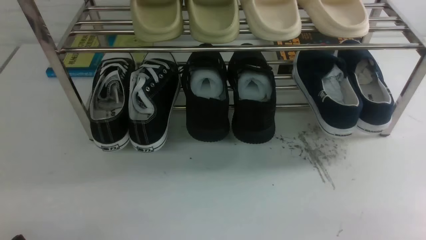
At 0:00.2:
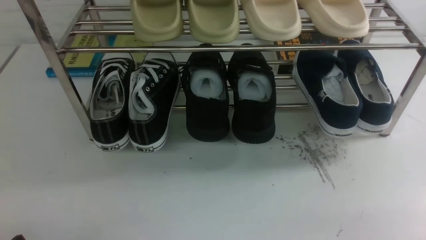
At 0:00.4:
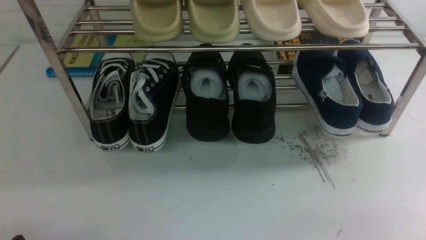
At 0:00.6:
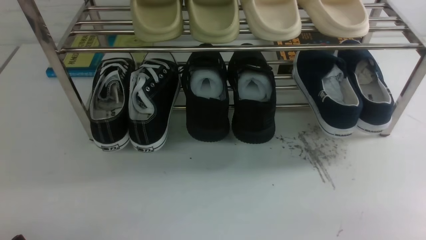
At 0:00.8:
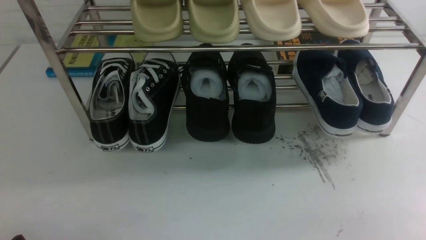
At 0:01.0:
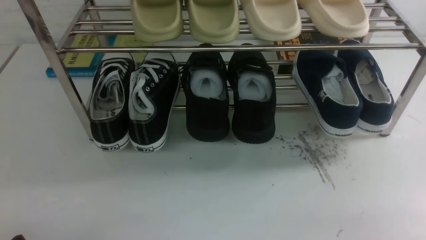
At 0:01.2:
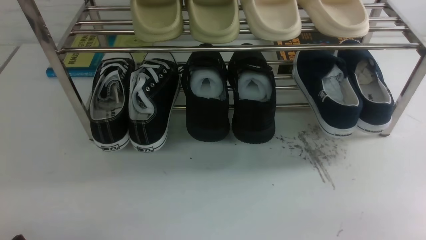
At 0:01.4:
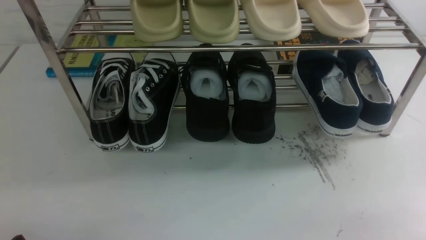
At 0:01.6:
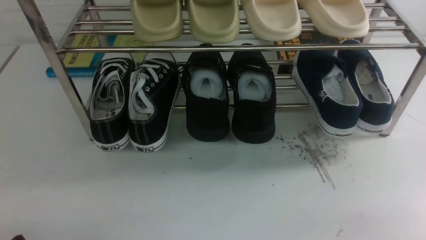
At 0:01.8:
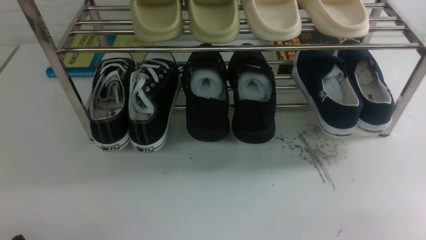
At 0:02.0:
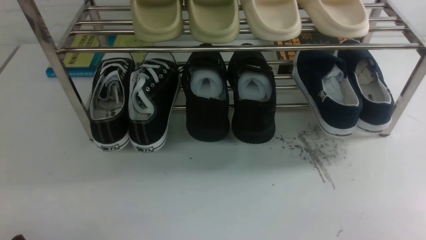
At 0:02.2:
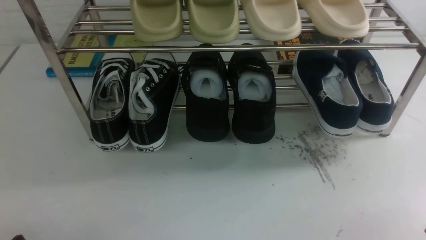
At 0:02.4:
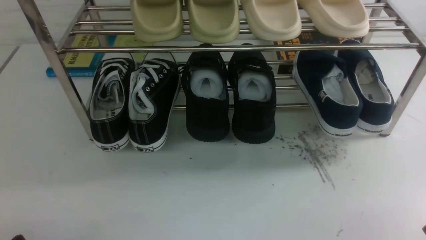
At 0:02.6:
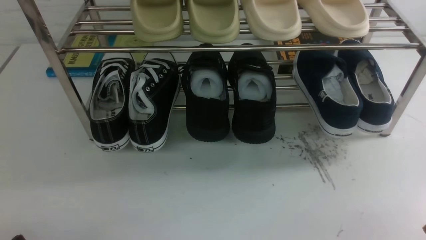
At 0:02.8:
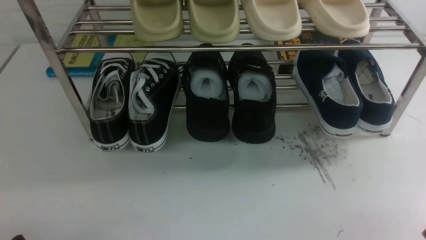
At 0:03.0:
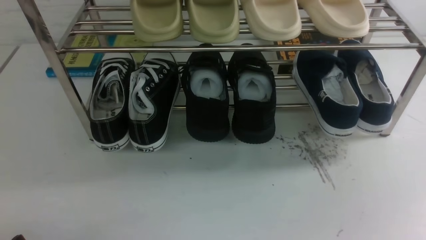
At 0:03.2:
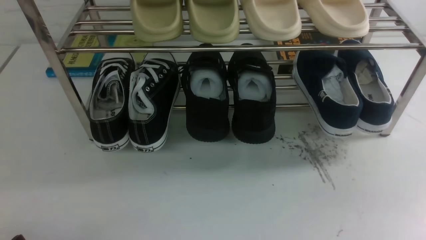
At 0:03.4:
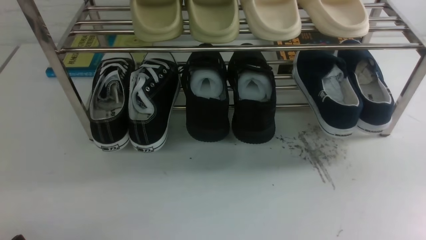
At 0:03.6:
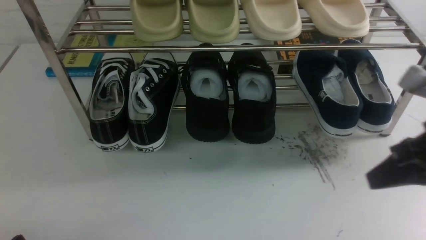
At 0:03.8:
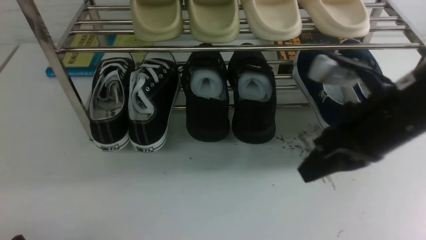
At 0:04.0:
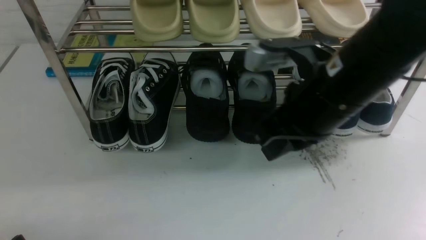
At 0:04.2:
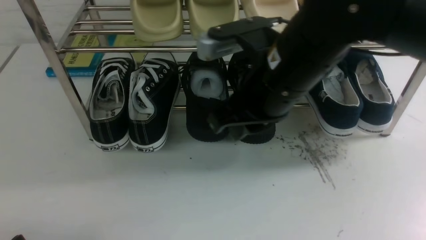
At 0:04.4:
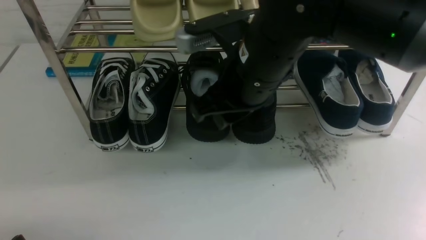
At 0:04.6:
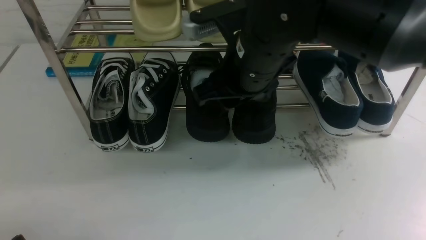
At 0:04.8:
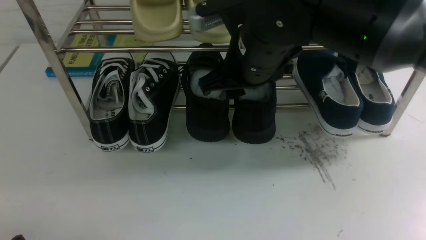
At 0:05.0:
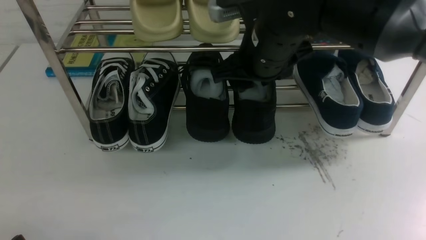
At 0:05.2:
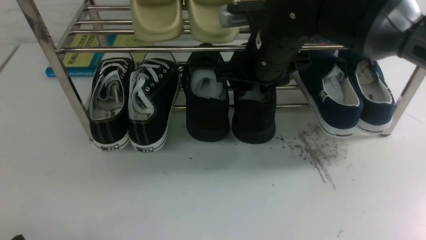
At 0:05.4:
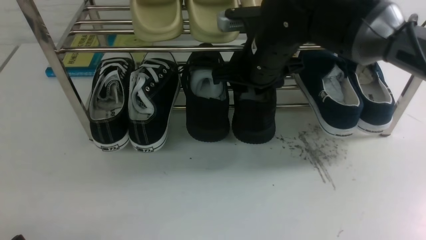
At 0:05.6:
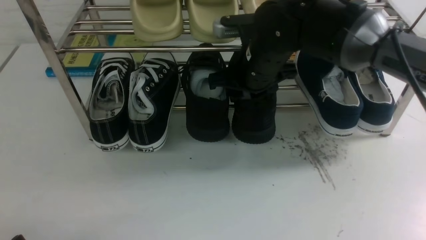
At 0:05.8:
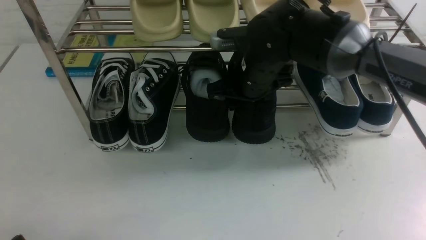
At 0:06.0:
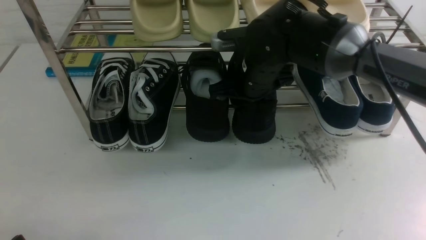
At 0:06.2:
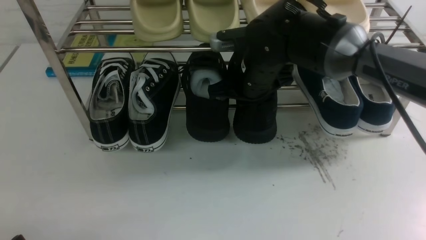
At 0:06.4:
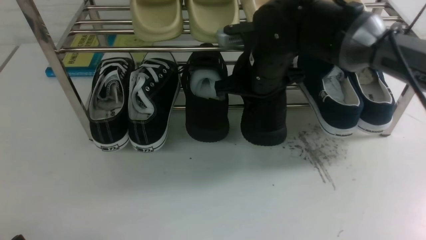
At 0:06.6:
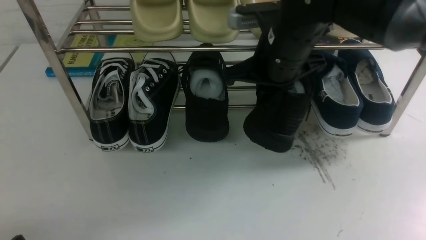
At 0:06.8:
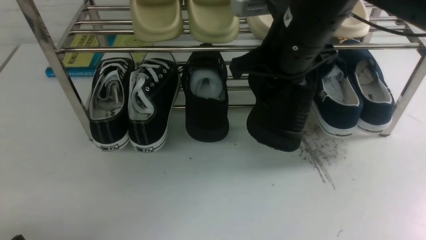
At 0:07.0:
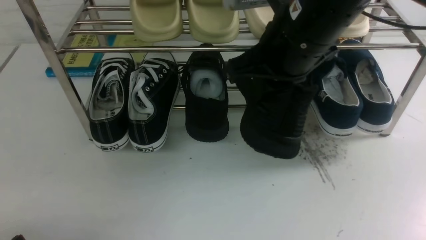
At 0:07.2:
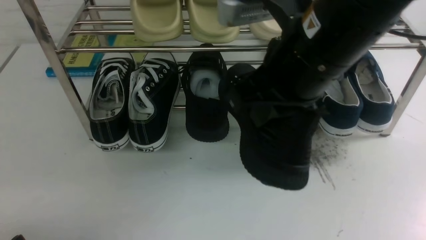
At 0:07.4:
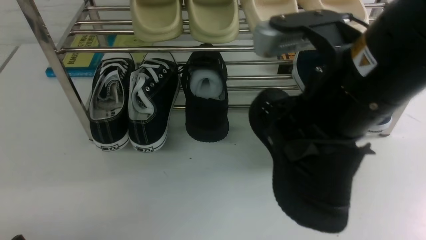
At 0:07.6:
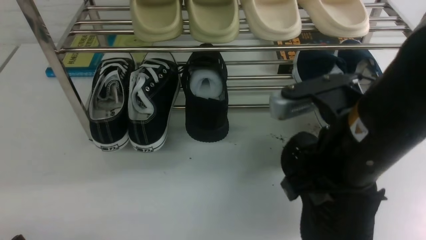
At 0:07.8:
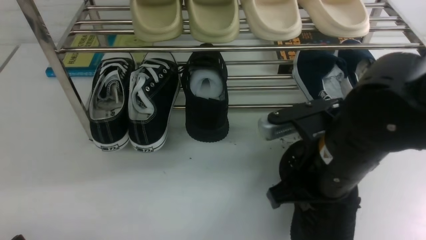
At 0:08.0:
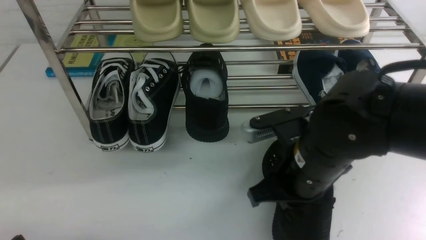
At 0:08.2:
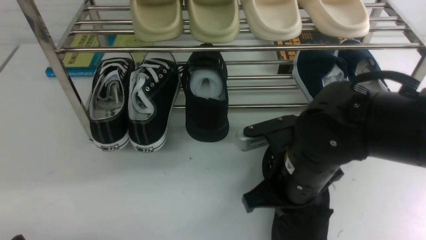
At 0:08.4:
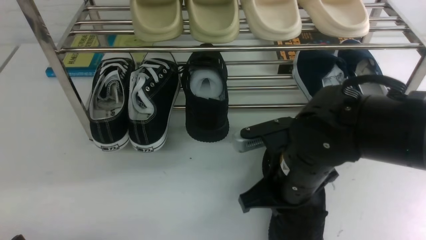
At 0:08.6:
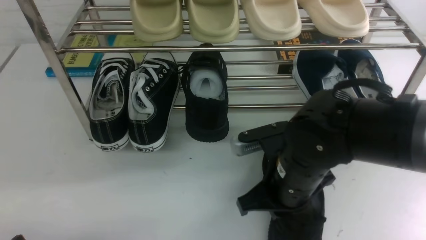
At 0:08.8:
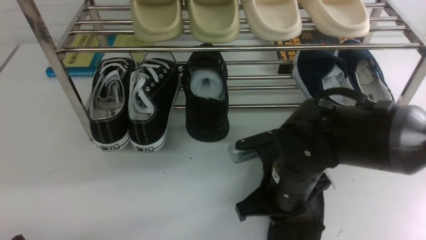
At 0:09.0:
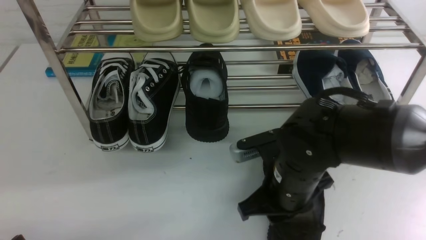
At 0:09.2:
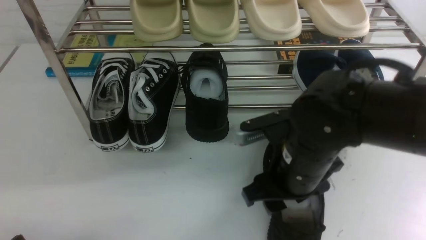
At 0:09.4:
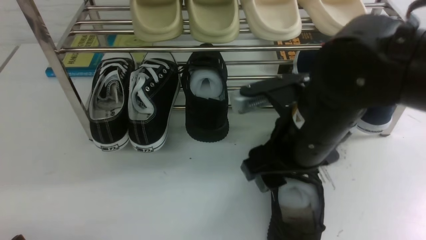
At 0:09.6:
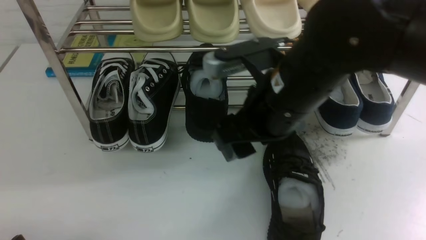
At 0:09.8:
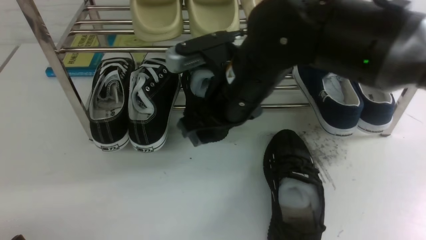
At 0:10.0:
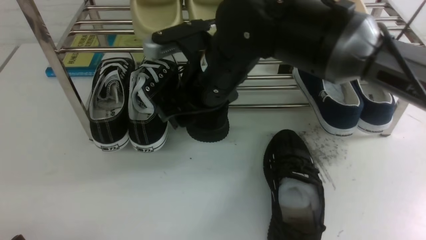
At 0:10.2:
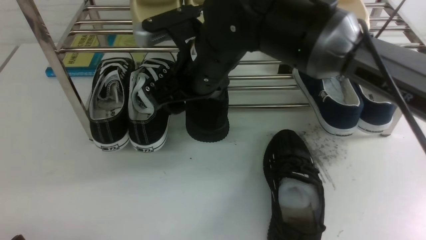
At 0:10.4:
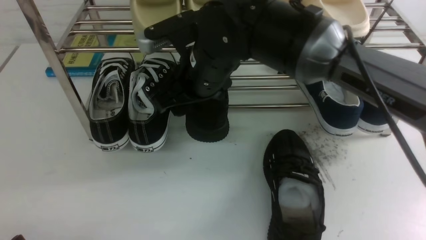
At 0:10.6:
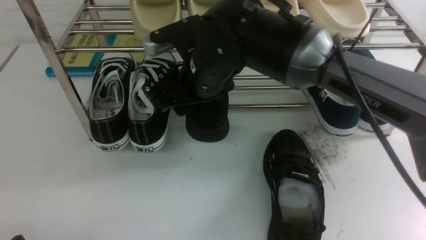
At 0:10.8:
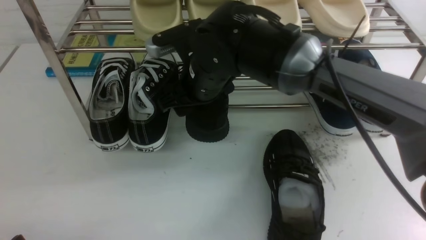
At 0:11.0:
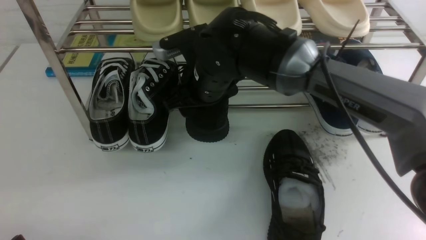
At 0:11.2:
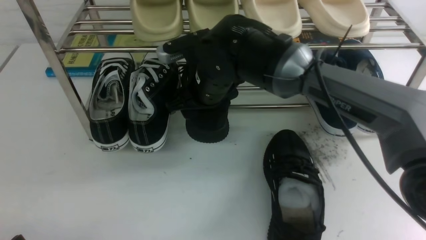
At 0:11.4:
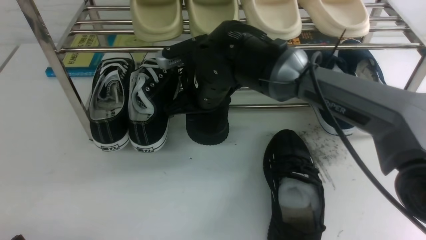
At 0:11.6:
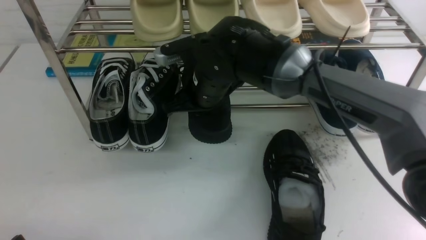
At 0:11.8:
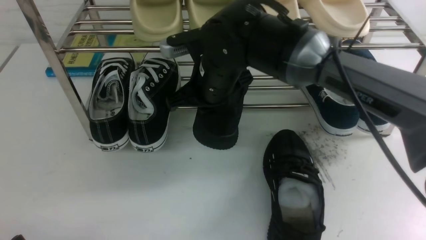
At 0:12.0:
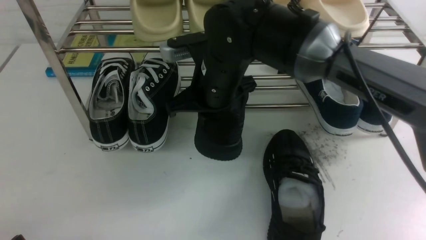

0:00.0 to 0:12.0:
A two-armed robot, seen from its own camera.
Step, 0:00.0 to 0:06.6: use the right arm to clamp a shoe in the middle of the shoe rack.
Step, 0:06.8 to 0:09.4: use the right arm to take out the clamped shoe from the shoe rack and put it down.
Step, 0:09.6 to 0:11.8: use the right arm to clamp a shoe in the middle of the shoe rack.
0:03.0 to 0:04.4: The right gripper goes about 35 cm to the left and forward, and opens its fingers.
0:04.4 to 0:06.0: The right gripper travels forward and downward by roughly 15 cm.
0:06.0 to 0:07.6: The right gripper shifts approximately 20 cm backward, and closes.
0:07.6 to 0:09.0: The right gripper is displaced downward by approximately 10 cm, and opens.
0:09.0 to 0:10.4: The right gripper shifts approximately 15 cm forward, to the left and upward, and opens up.
0:10.4 to 0:12.0: The right gripper closes up.

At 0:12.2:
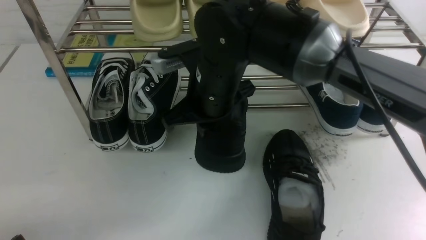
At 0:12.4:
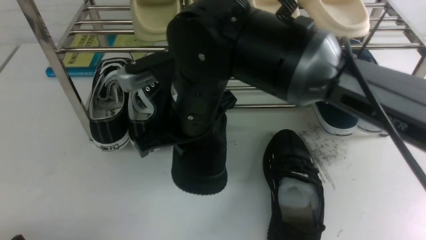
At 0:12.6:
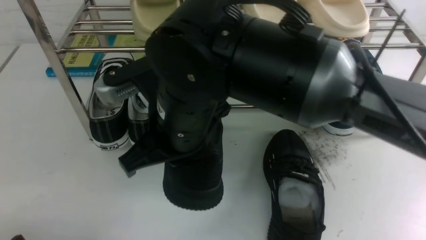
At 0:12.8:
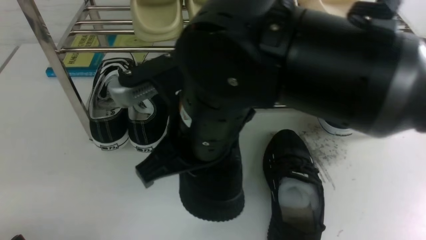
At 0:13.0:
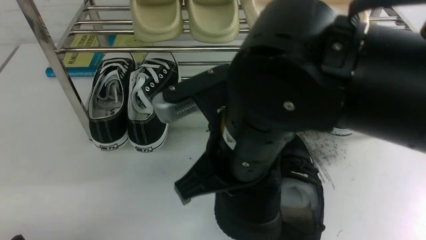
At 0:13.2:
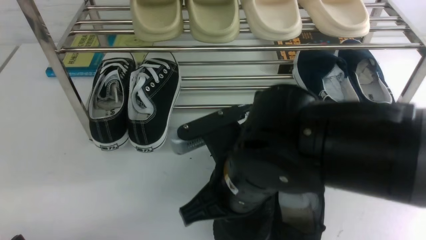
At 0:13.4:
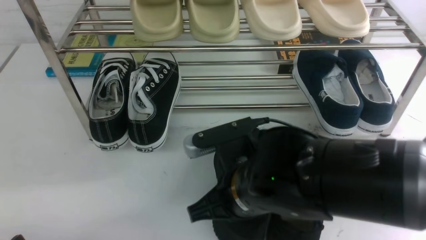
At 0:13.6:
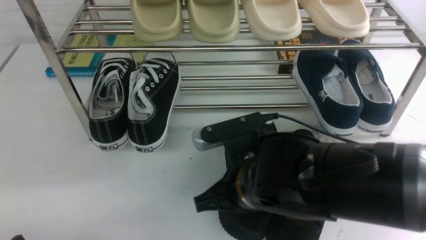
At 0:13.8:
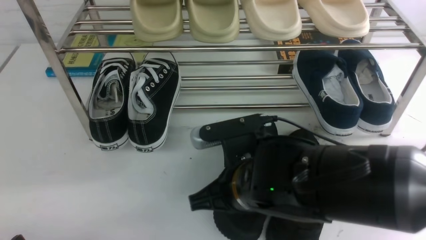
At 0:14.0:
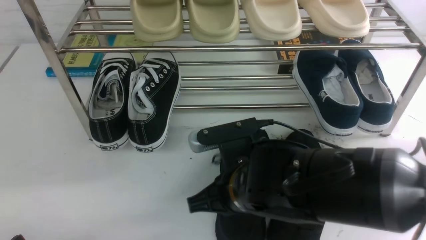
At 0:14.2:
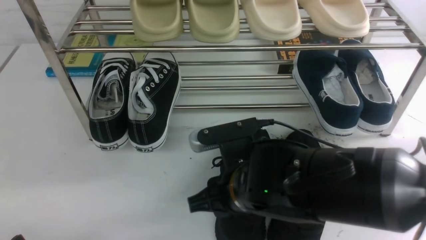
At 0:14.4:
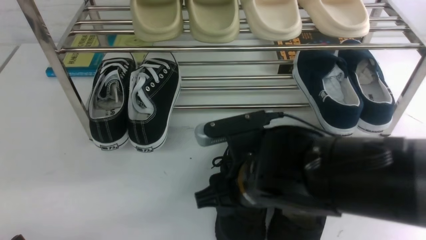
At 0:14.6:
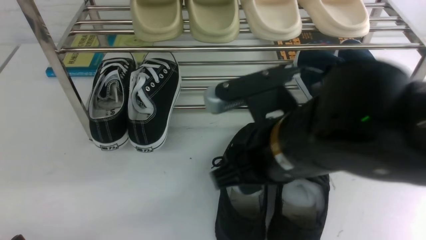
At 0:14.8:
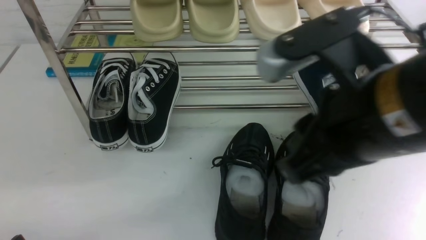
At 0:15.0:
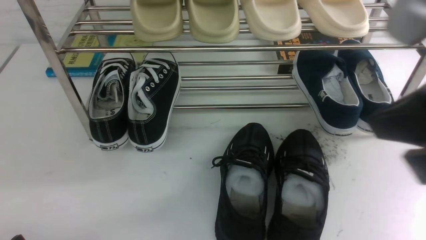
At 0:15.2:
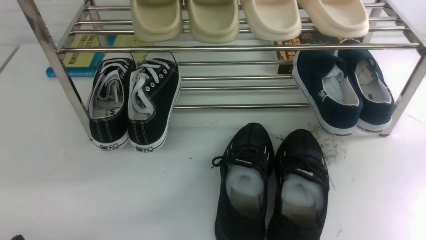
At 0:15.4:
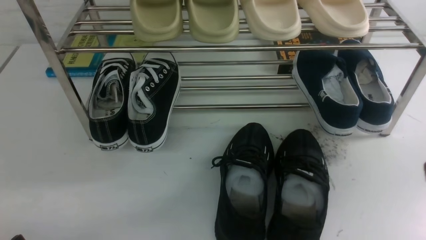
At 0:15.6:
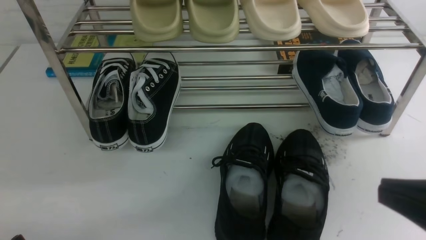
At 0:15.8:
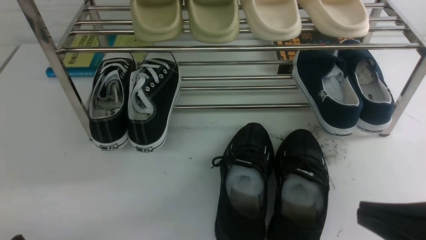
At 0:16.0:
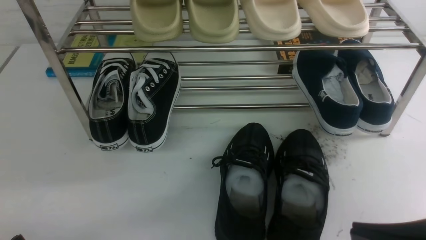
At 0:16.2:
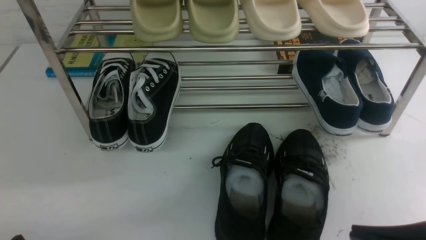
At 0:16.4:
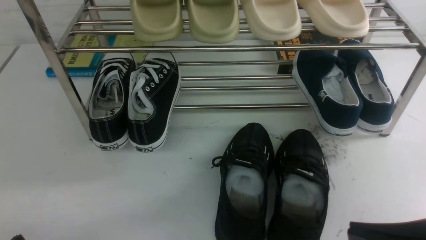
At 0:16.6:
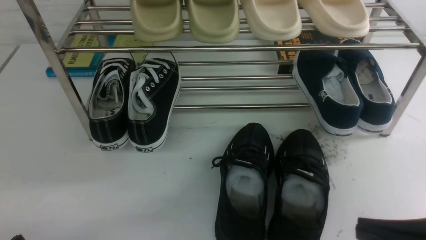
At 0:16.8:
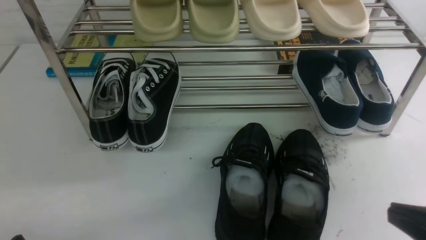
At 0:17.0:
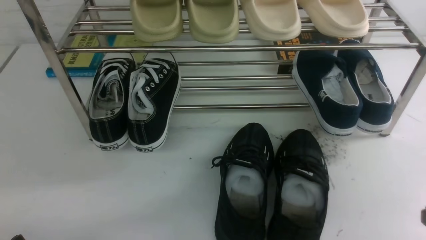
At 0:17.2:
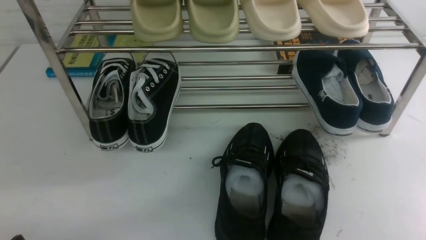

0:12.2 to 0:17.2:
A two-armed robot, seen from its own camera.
Step, 0:12.2 to 0:14.6: use the right arm to take out the clamped shoe from the shoe rack and put it down.
0:12.2 to 0:13.8: The right gripper heads backward and downward, covering about 15 cm.
0:13.8 to 0:15.6: The right gripper shifts about 25 cm to the right, backward and upward, and opens, then closes once more.
0:15.6 to 0:17.2: The right gripper moves downward and to the right, roughly 15 cm.
